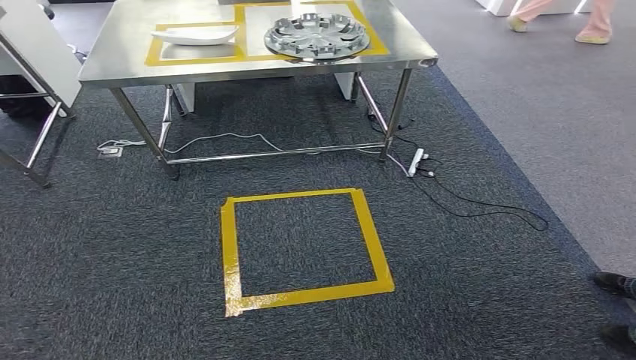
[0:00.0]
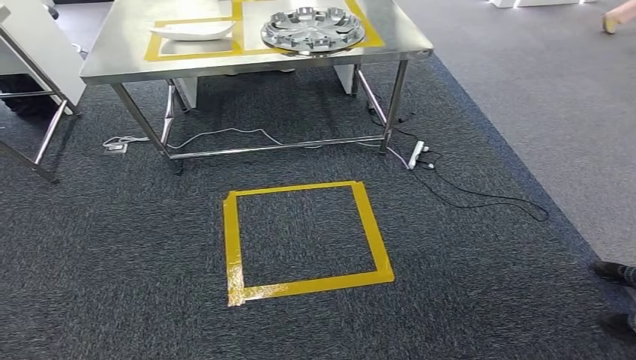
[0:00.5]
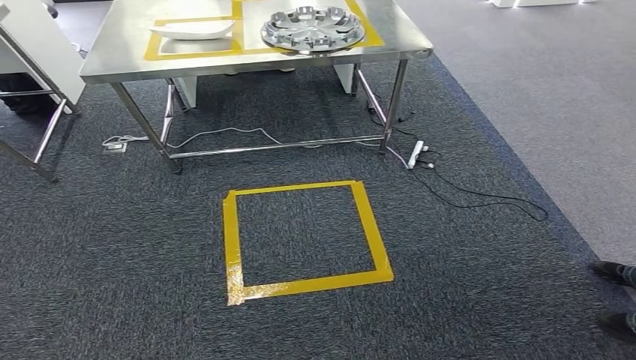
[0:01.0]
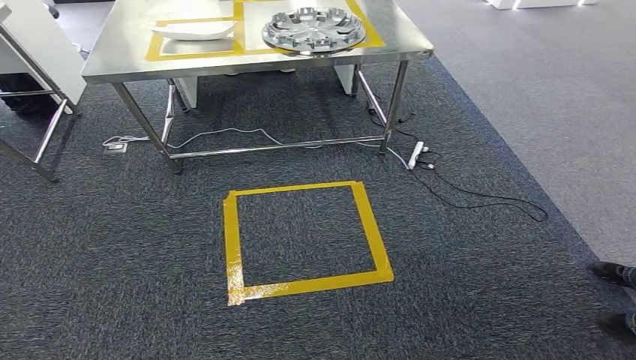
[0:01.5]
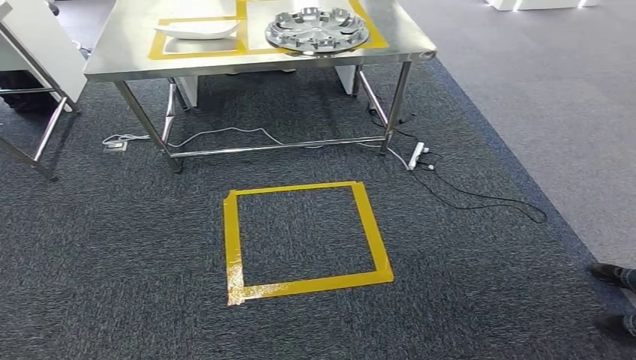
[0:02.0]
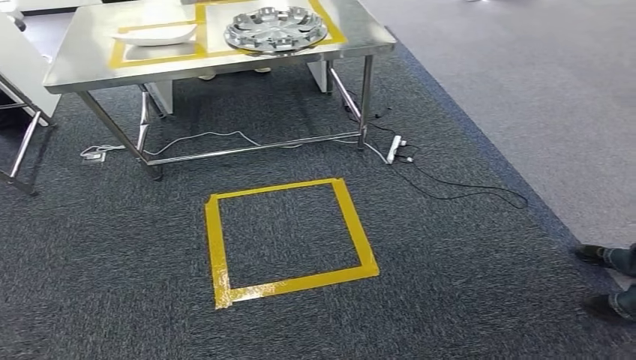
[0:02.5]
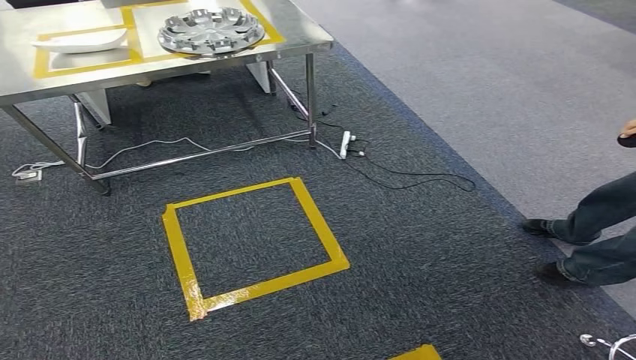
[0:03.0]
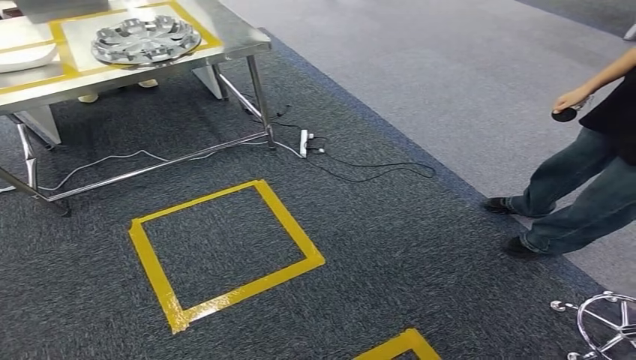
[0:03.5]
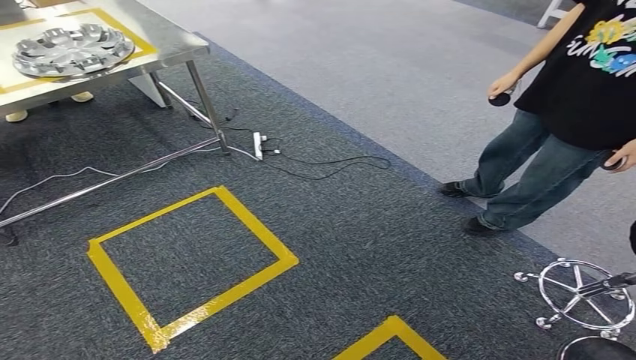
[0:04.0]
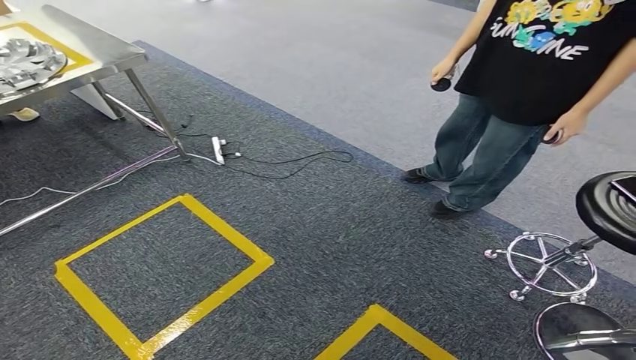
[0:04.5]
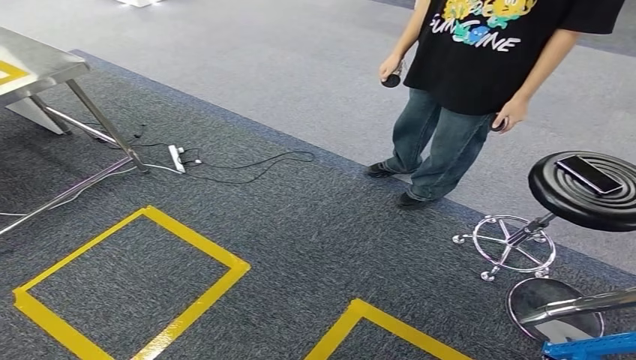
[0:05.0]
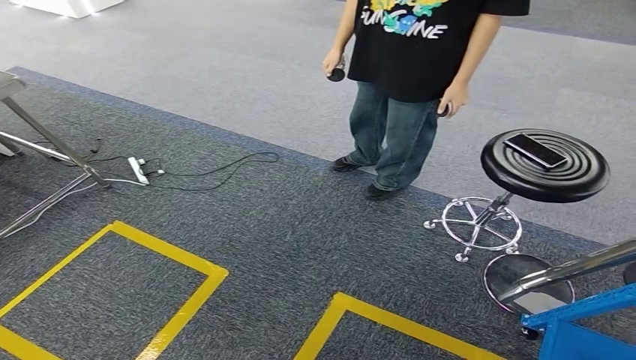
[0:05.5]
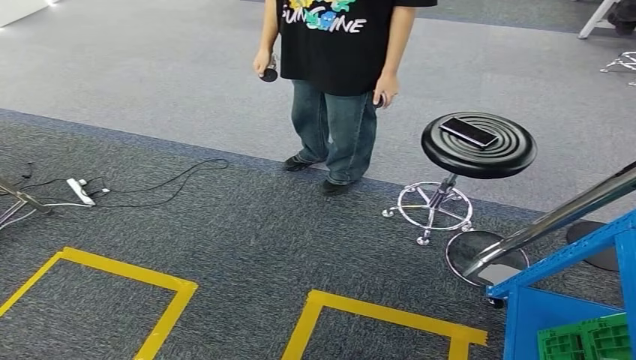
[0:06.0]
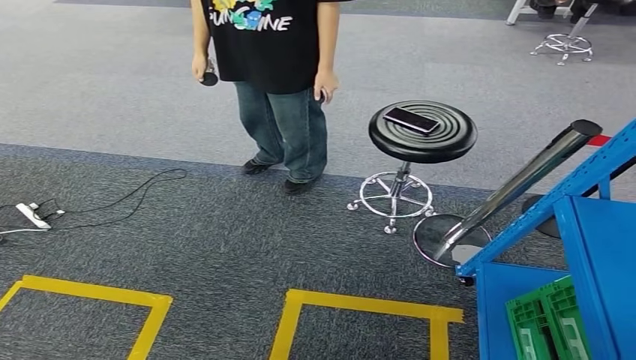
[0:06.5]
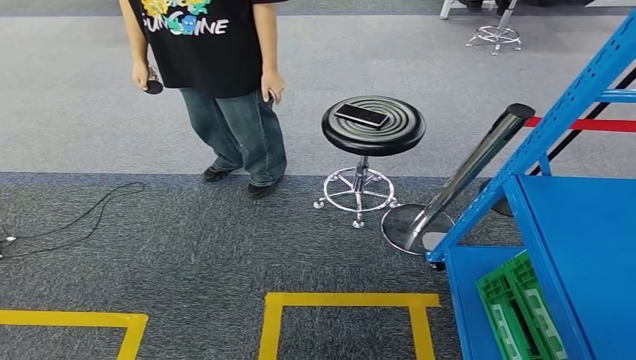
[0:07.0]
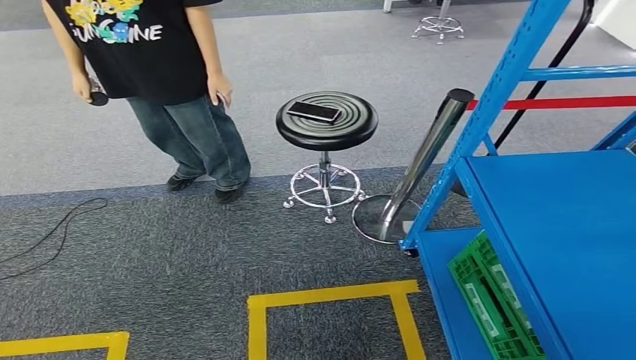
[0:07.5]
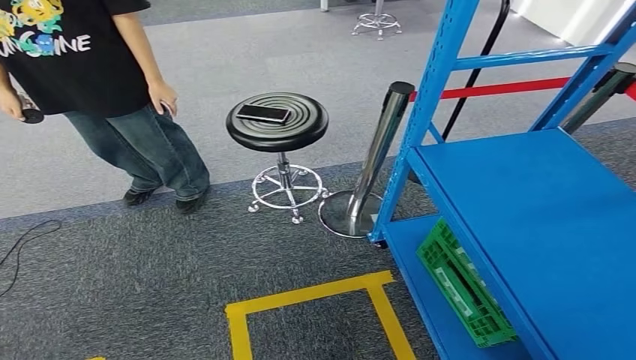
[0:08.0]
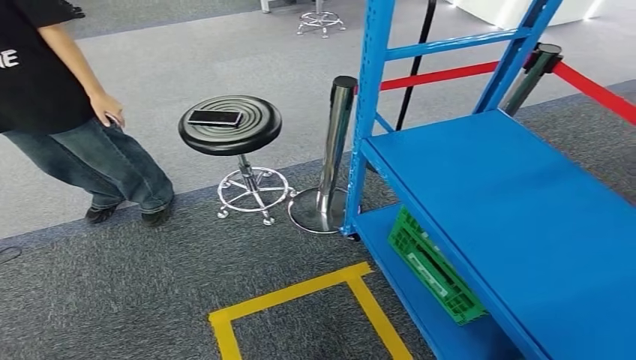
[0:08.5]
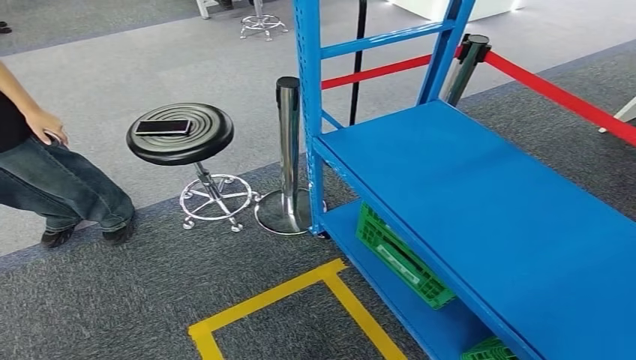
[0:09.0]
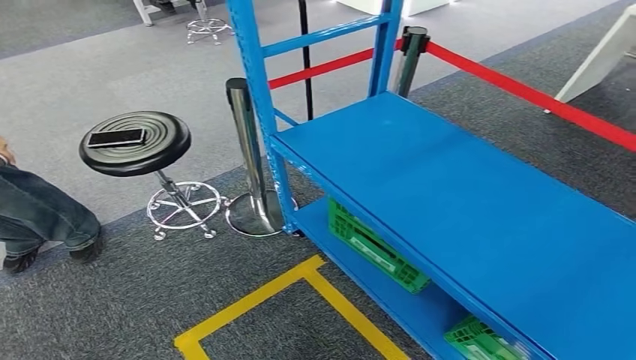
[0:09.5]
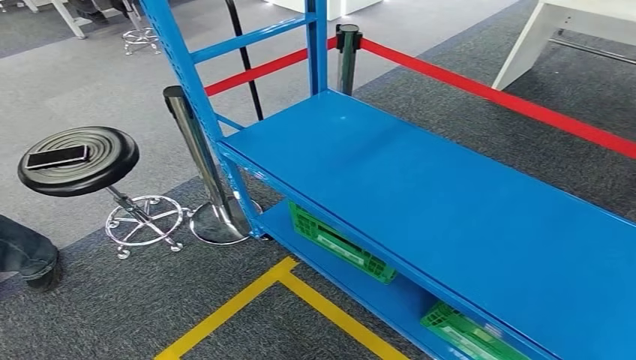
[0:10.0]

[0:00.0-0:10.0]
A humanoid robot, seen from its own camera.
0:00.0 to 0:02.0: Both hands stay put.

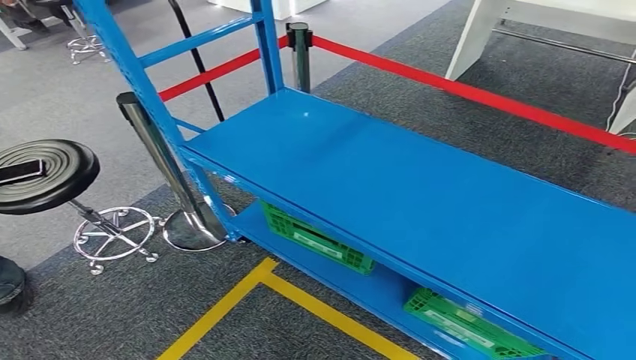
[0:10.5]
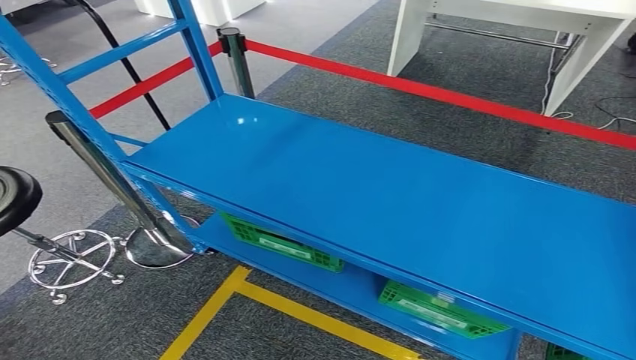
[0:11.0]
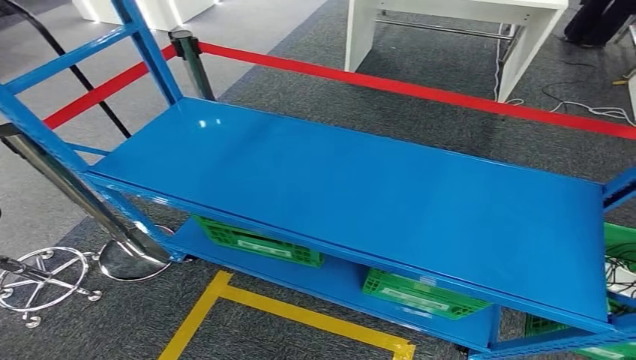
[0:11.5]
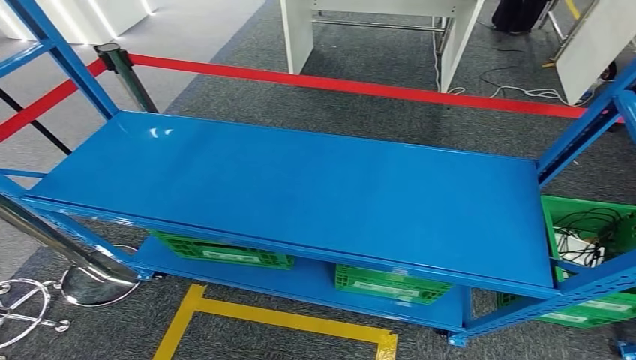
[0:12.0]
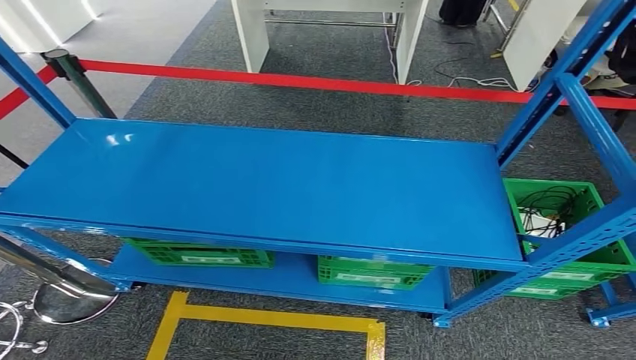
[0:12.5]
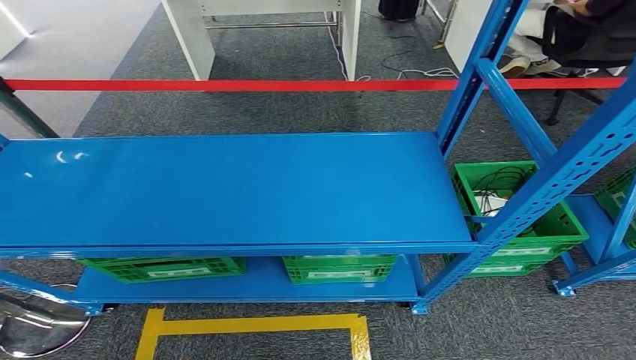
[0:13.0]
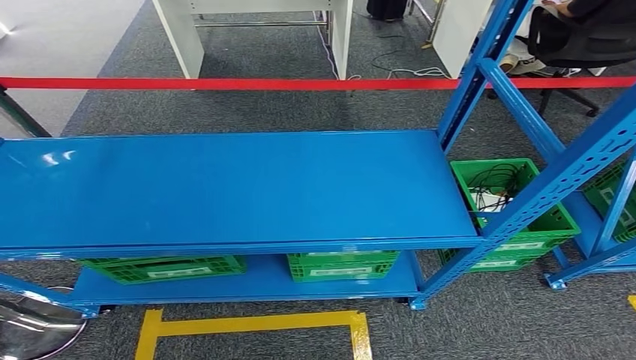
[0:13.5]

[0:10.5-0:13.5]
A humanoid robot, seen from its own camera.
Step, 0:10.5 to 0:13.5: Move to the initial position at the workbench.
